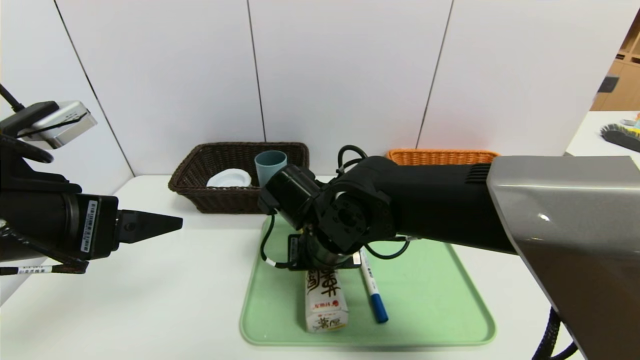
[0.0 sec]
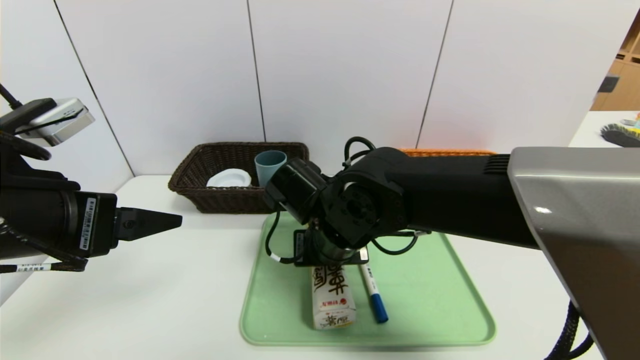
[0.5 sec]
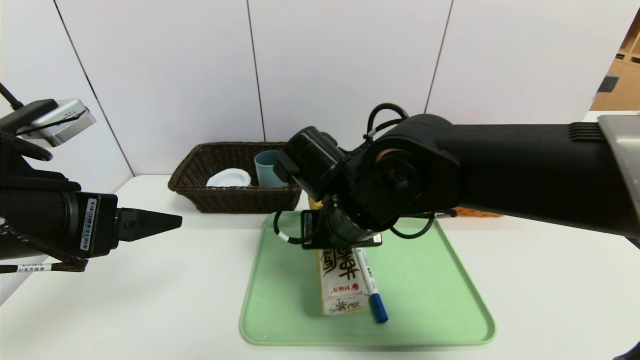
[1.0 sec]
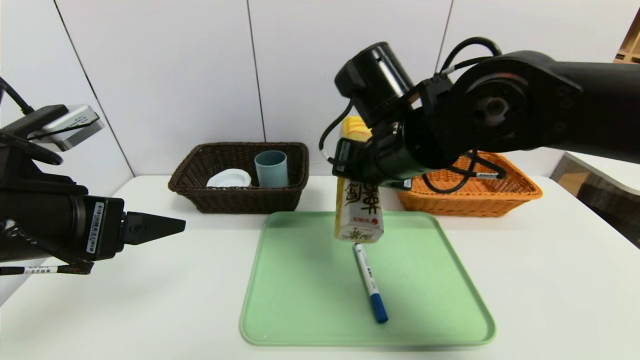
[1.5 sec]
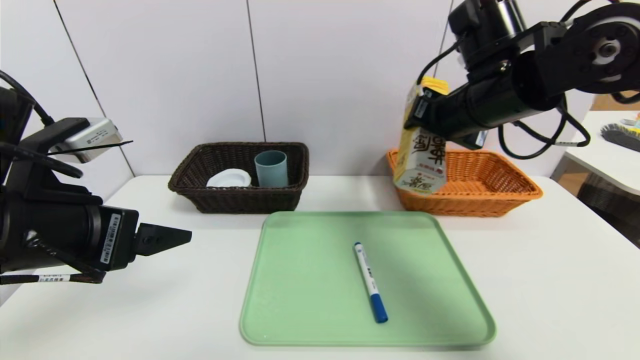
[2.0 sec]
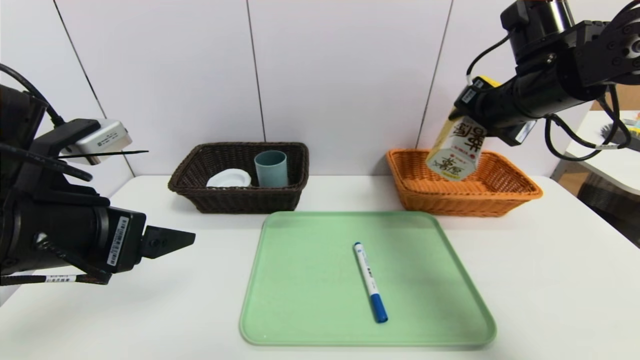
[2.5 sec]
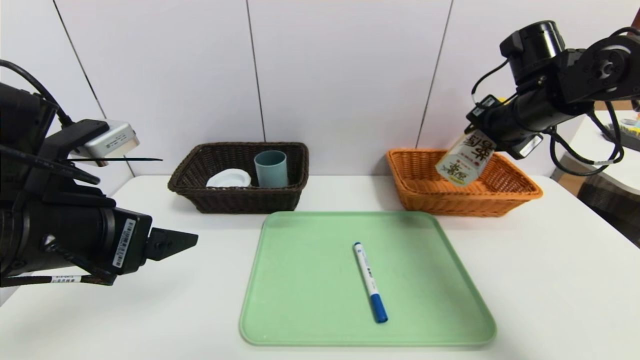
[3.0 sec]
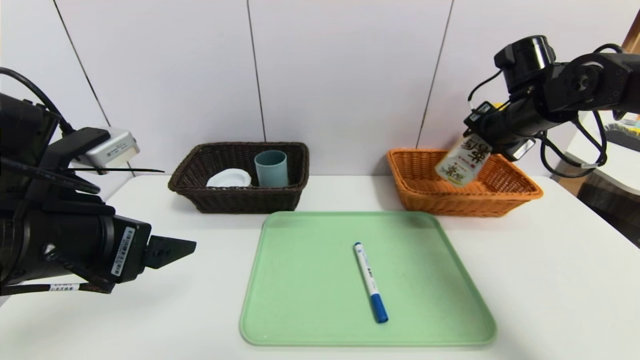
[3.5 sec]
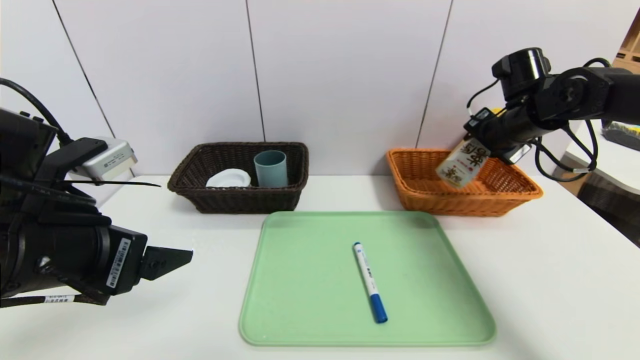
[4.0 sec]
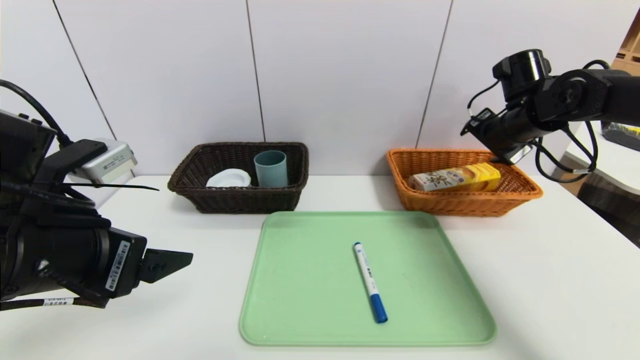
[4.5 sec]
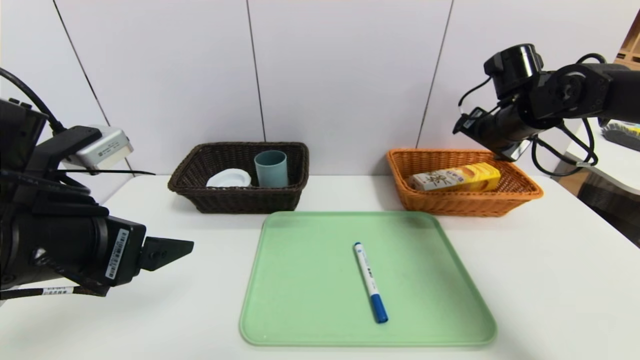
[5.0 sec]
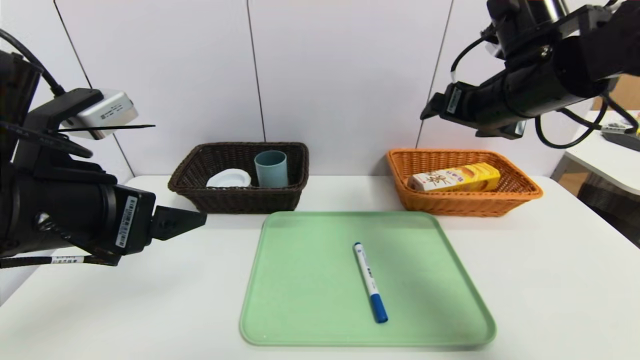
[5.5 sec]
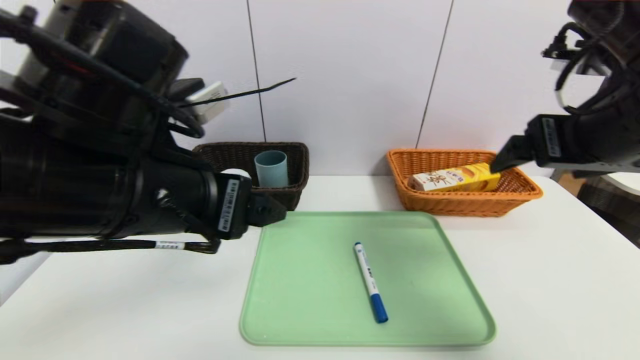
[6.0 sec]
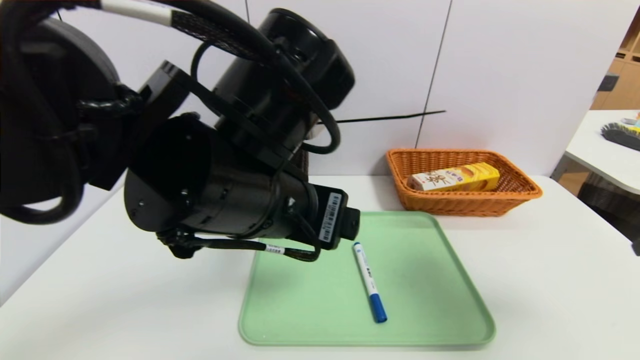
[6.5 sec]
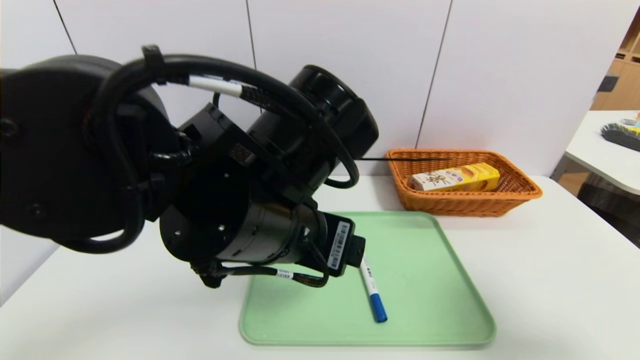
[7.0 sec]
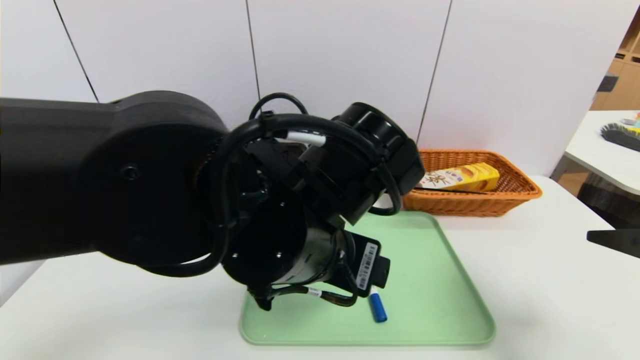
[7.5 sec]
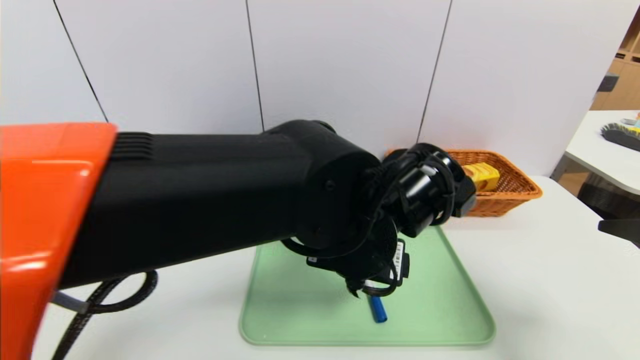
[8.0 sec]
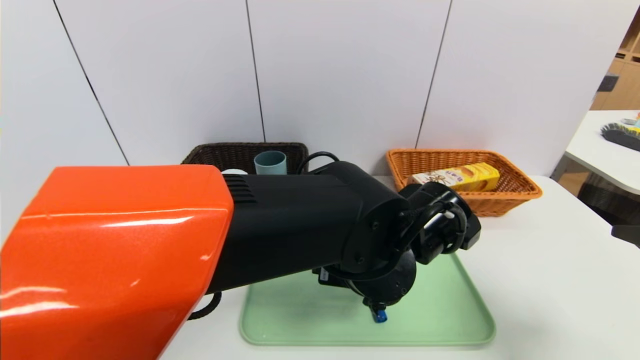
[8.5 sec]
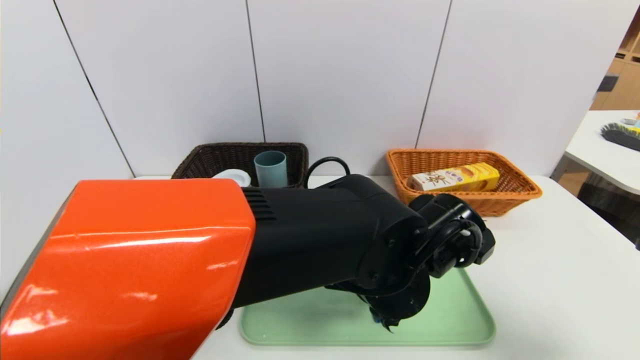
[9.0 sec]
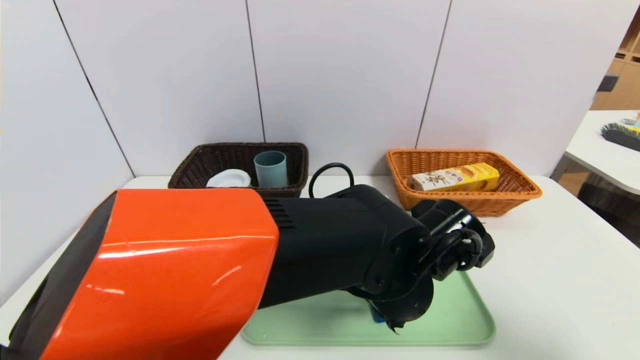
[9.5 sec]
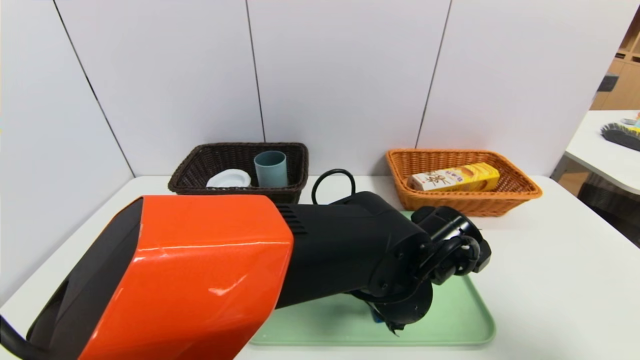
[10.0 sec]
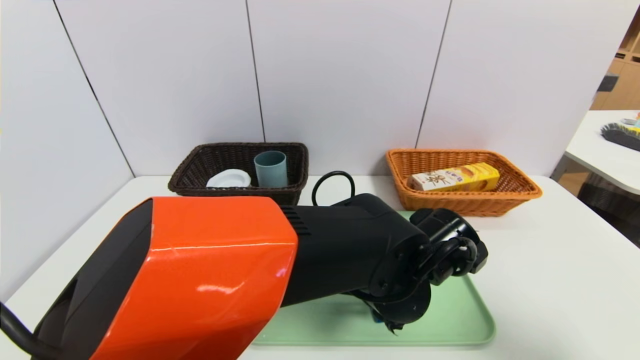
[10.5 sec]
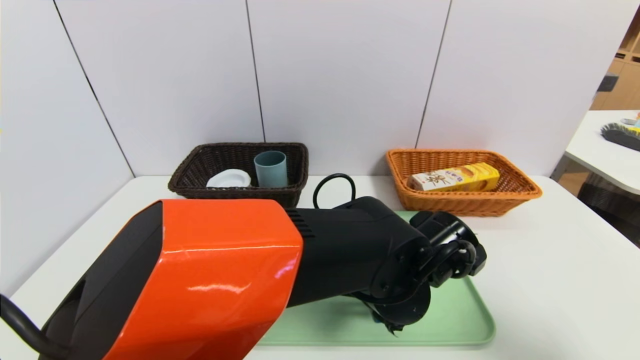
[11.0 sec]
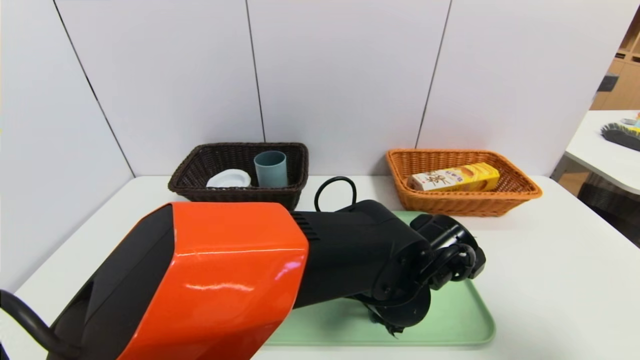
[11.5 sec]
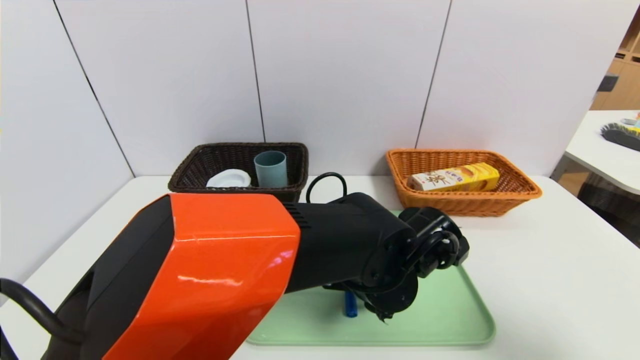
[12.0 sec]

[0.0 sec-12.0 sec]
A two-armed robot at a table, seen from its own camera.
Task of the whole recording: place the food in the right basket with the right gripper, and place the non food items in the left basket with the left gripper.
Step, 0.0 sec to 4.5 sec: Grasp the potato chips and put it in the right basket.
0.0 sec to 2.0 sec: The right gripper moves to the right and upward, some 25 cm.
2.0 sec to 4.0 sec: The right gripper heads to the right, forward and downward, covering some 15 cm.
4.0 sec to 6.0 sec: The right gripper moves backward and upward, approximately 20 cm, and opens; the left gripper heads to the right, covering approximately 10 cm.
6.0 sec to 8.0 sec: The right gripper travels backward, to the right and downward by roughly 15 cm, while the left gripper goes about 20 cm to the right and downward.
8.0 sec to 10.0 sec: The left gripper goes roughly 5 cm downward.
10.0 sec to 12.0 sec: The left gripper closes its fingers.

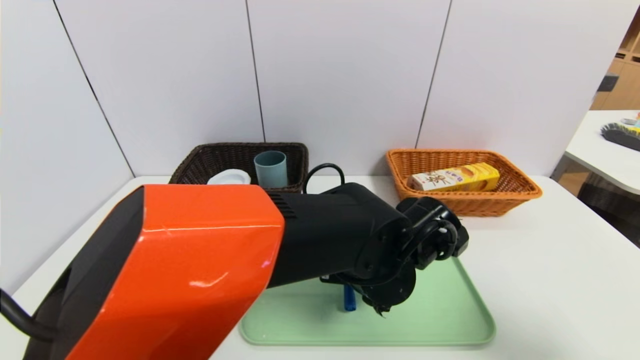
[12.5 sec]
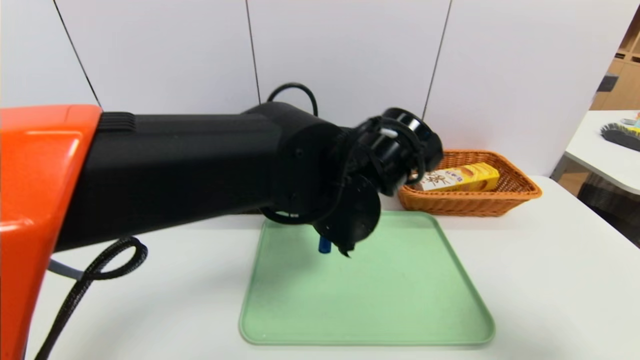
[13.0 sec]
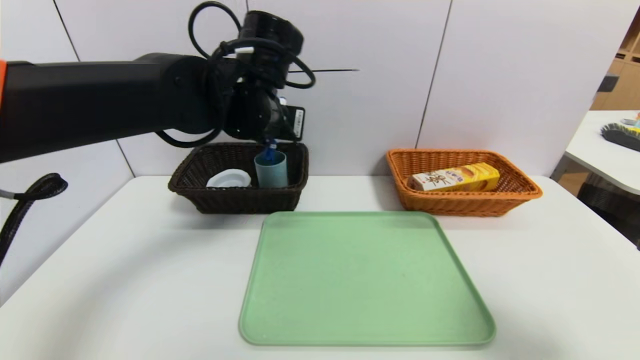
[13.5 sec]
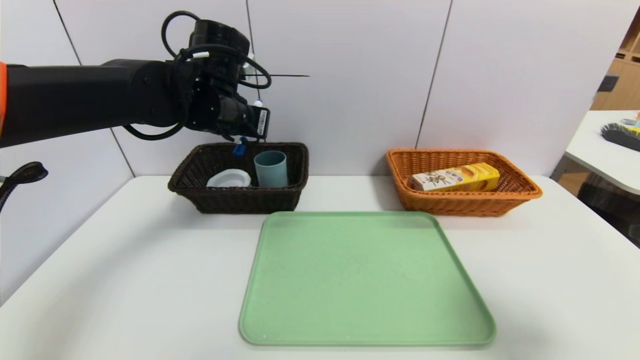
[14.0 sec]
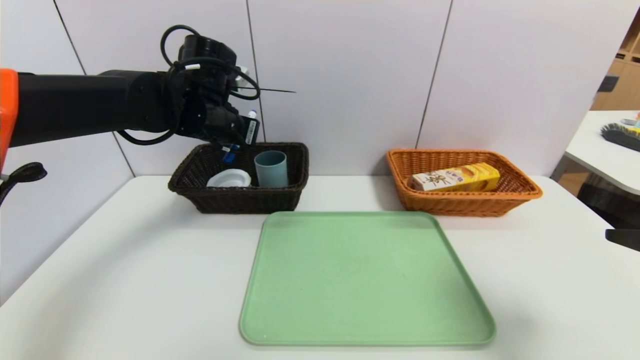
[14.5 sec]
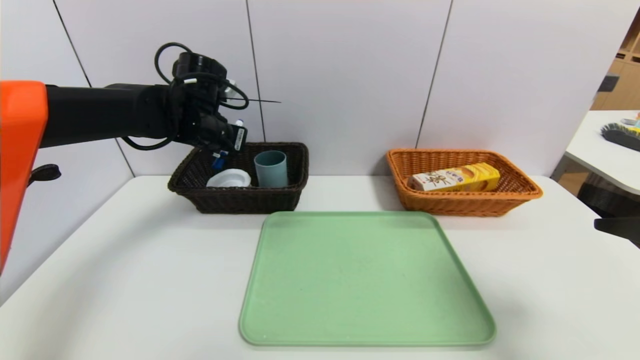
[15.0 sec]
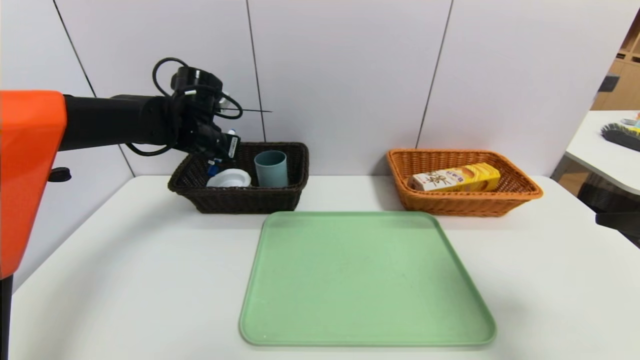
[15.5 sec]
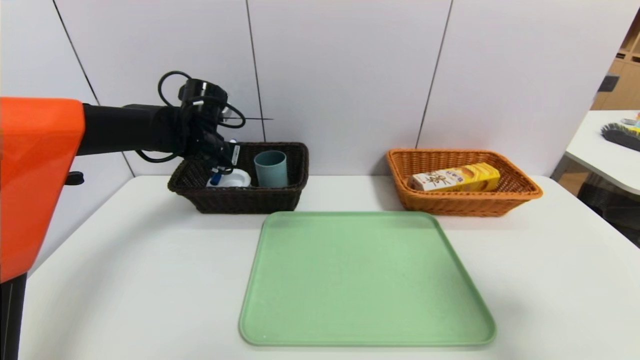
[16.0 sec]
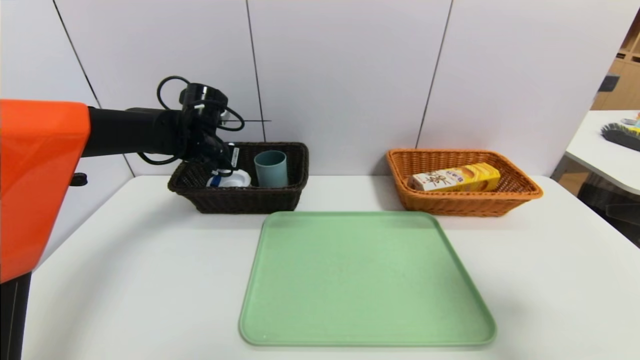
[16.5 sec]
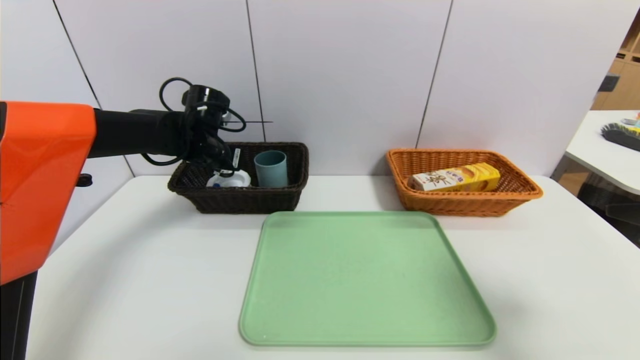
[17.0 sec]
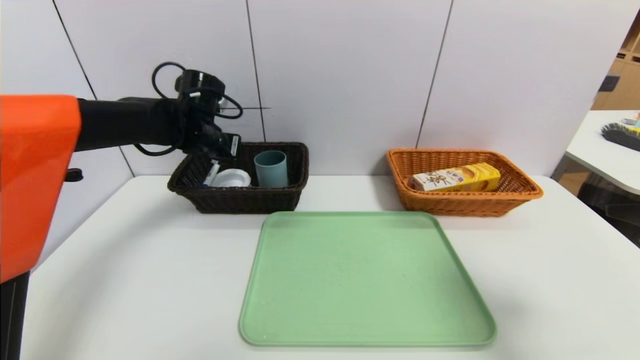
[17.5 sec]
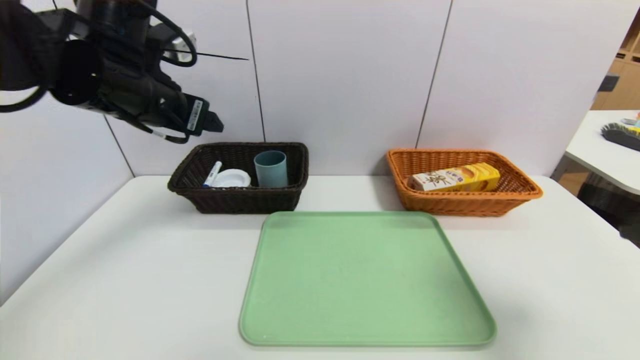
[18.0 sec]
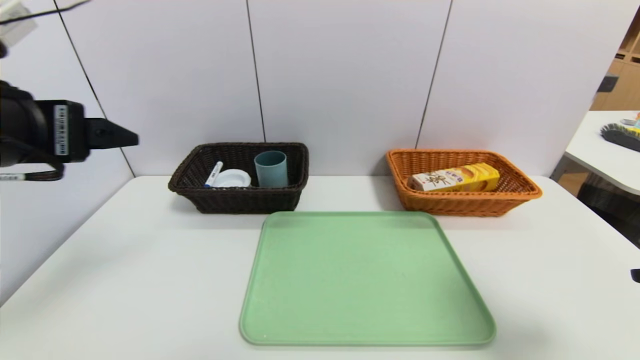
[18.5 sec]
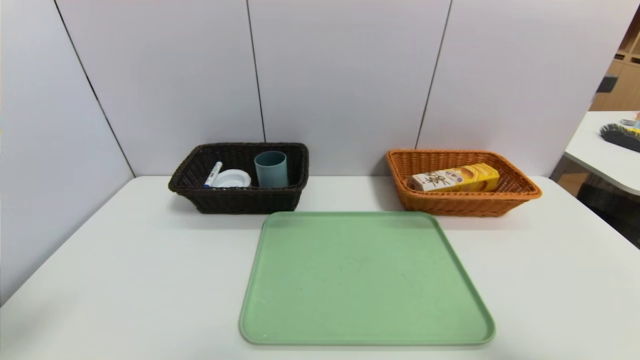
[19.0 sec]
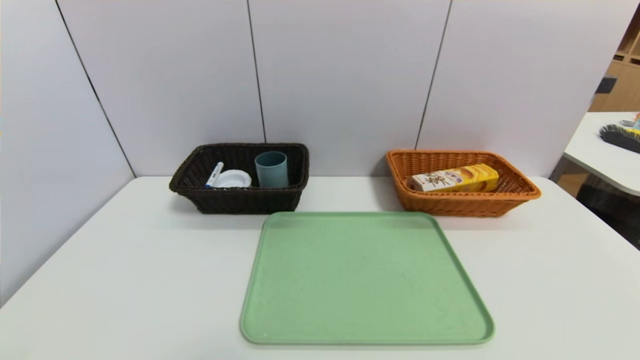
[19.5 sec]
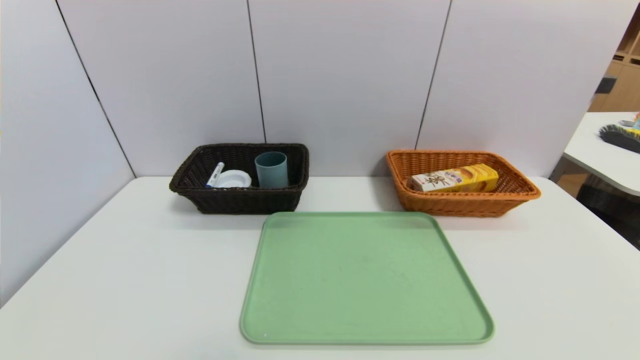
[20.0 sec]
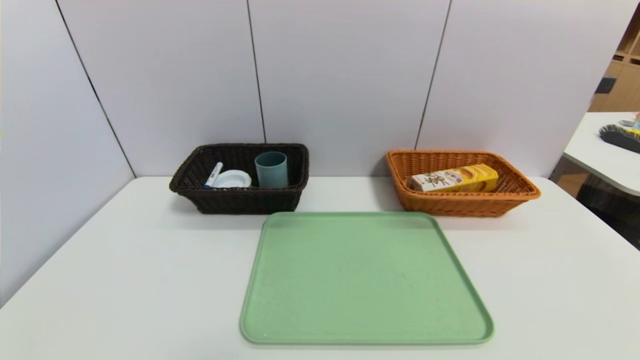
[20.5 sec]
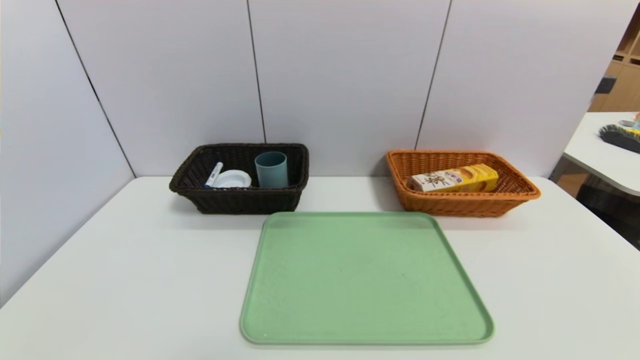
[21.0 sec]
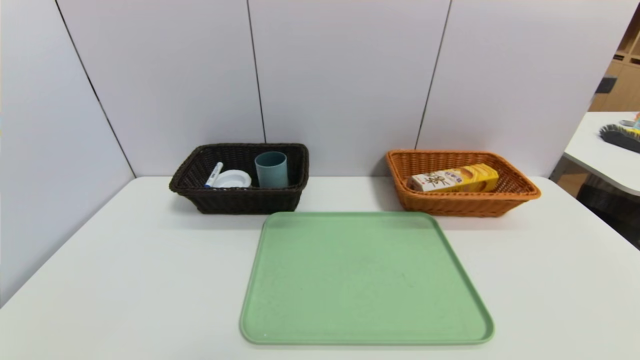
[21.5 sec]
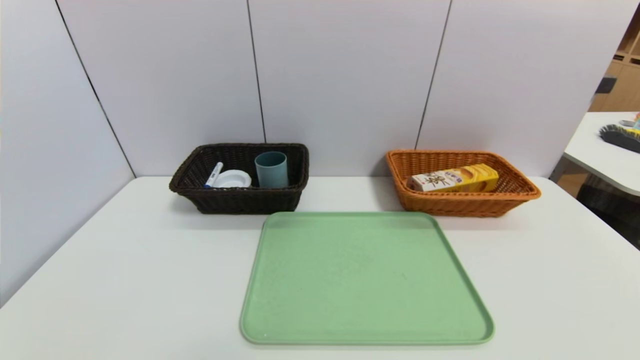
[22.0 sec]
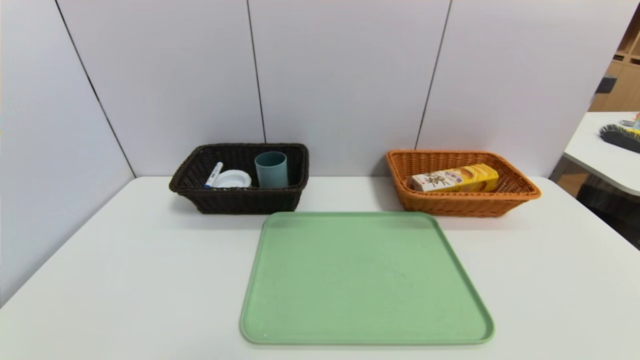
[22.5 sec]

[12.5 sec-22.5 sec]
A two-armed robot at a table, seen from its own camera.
Task of the whole recording: place the food in the right basket with the right gripper, and place the non food items in the left basket with the left gripper.
Step, 12.5 sec to 17.5 sec: Grasp the blue marker and put it in the left basket.
12.5 sec to 14.5 sec: The left gripper shifts some 30 cm to the left, forward and upward.
14.5 sec to 16.5 sec: The left gripper travels downward by about 5 cm.
16.5 sec to 18.5 sec: The left gripper moves backward and upward, about 30 cm, and opens its fingers.
18.5 sec to 20.5 sec: The two grippers go some 25 cm backward and downward.
